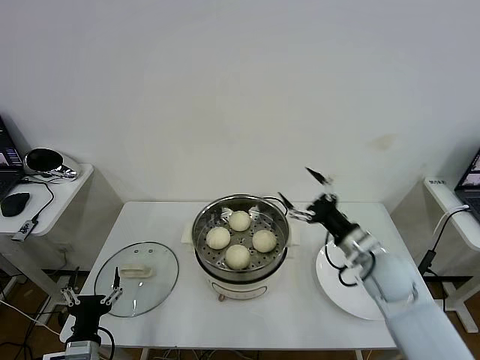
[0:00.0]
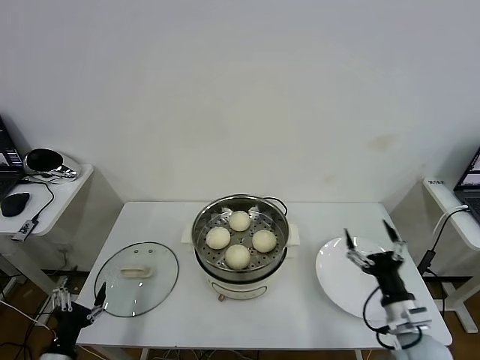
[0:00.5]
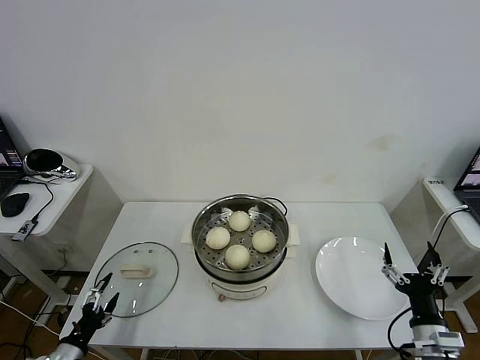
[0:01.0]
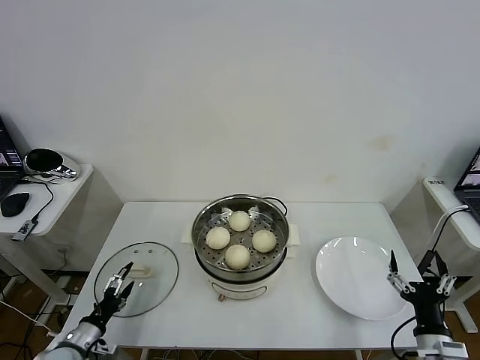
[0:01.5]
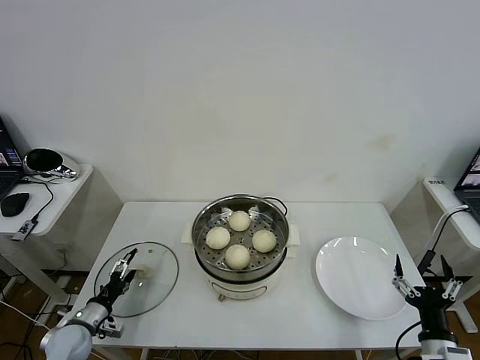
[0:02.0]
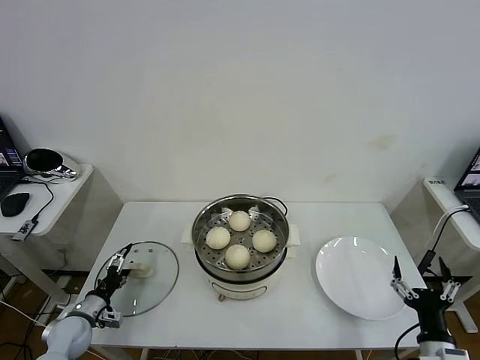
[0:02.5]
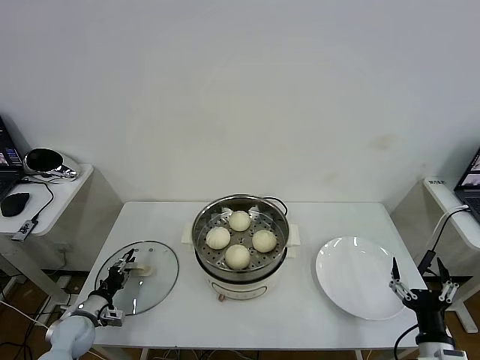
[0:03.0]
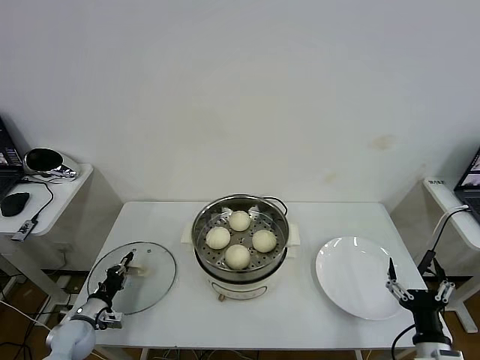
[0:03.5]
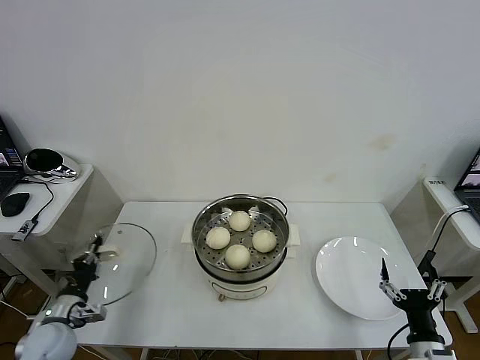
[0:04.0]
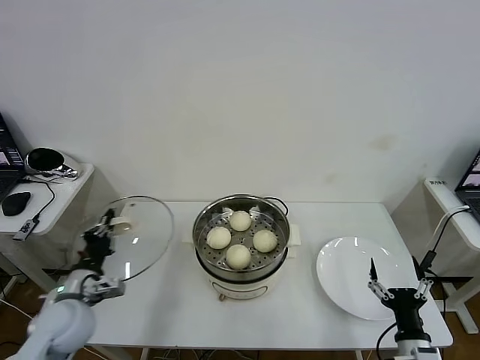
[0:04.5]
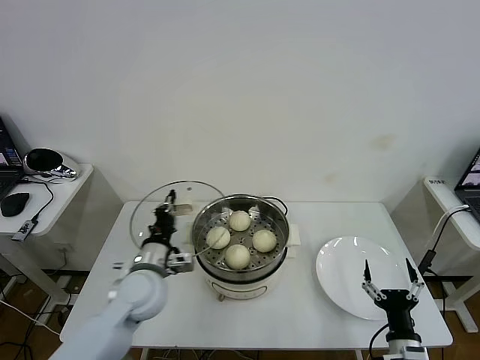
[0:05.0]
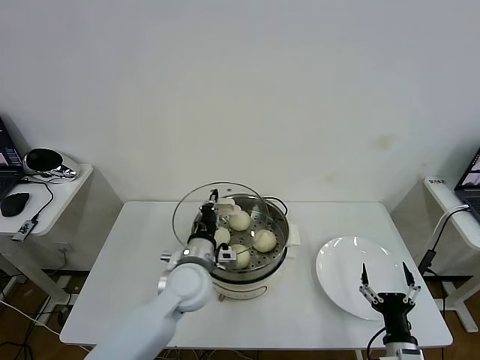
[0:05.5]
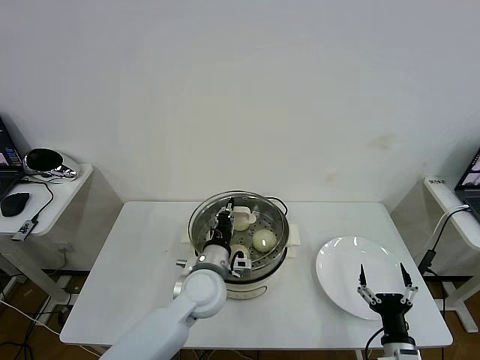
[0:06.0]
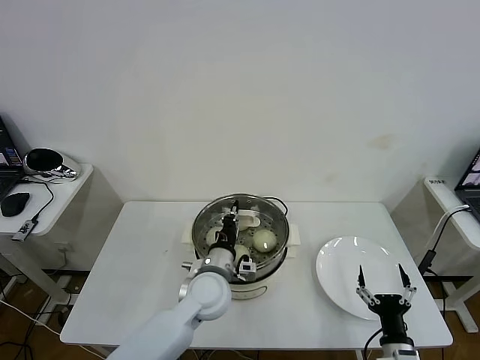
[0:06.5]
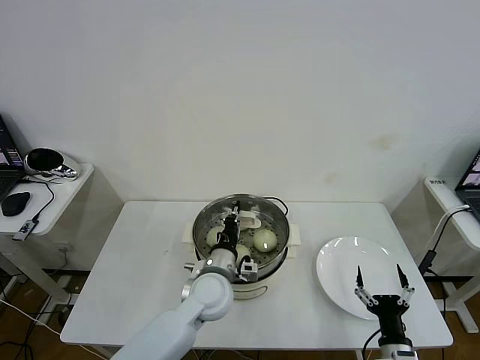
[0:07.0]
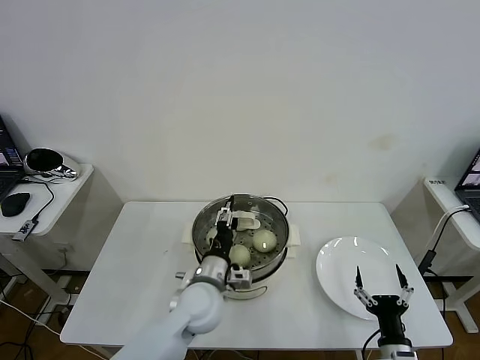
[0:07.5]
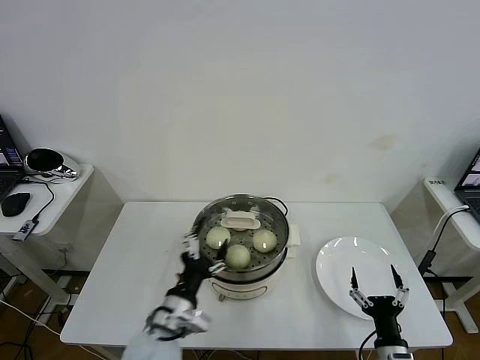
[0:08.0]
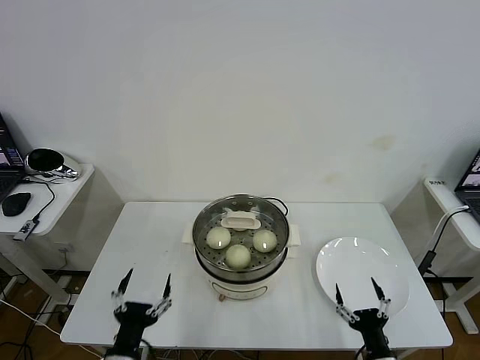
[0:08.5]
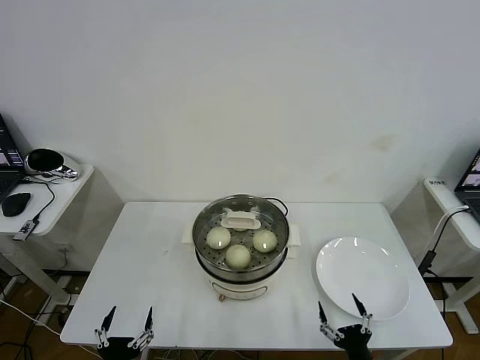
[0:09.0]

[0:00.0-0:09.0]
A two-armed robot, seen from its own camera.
Task of the whole recording: take steamed baozi put them in steamer then cover it.
Step, 0:00.0 to 0:03.0: Grasp the pot lid with left gripper.
Step, 0:03.5 to 0:07.5: Place the pot lid on the steamer with left gripper.
0:00.0 to 0:02.0: The right gripper heads backward and downward, covering roughly 20 cm, while the left gripper goes approximately 15 cm forward, to the left and downward.
0:02.0 to 0:04.5: The left gripper travels upward and to the right by some 15 cm, and closes its fingers.
0:04.5 to 0:07.0: The left gripper travels to the right by roughly 30 cm.
0:07.0 to 0:09.0: The right gripper shifts by some 5 cm. The left gripper moves backward and to the left, approximately 35 cm, and opens up.
